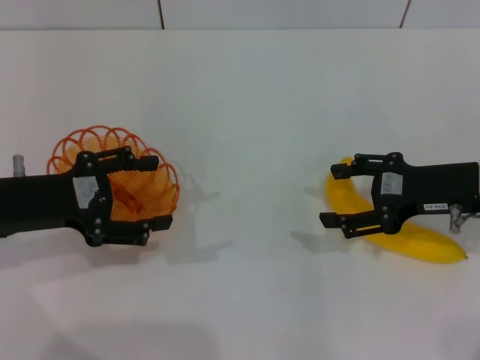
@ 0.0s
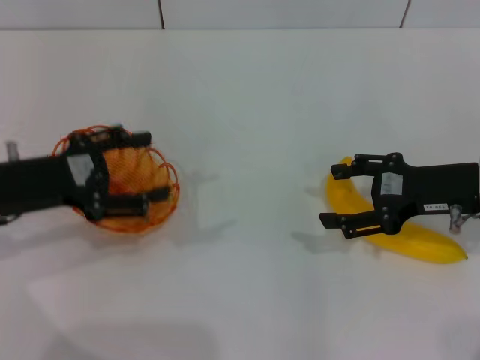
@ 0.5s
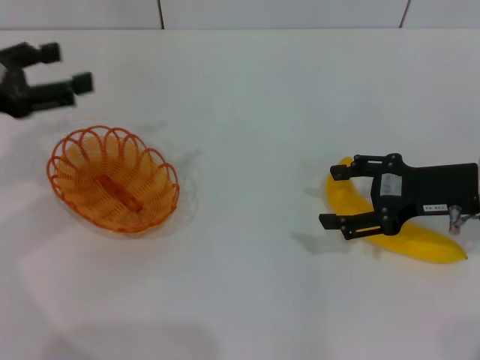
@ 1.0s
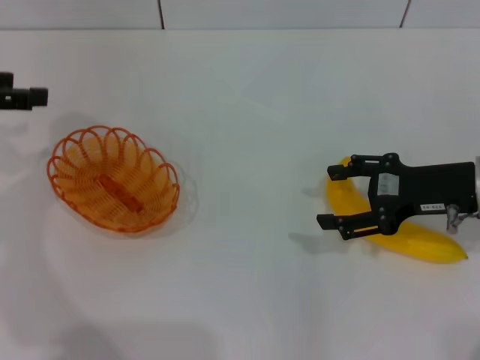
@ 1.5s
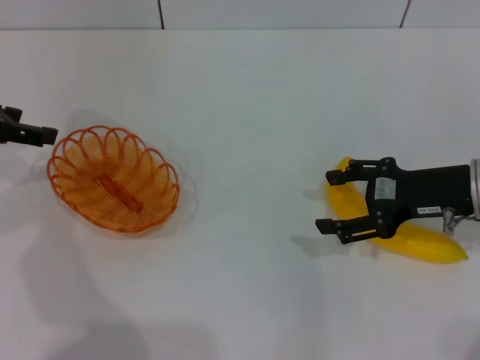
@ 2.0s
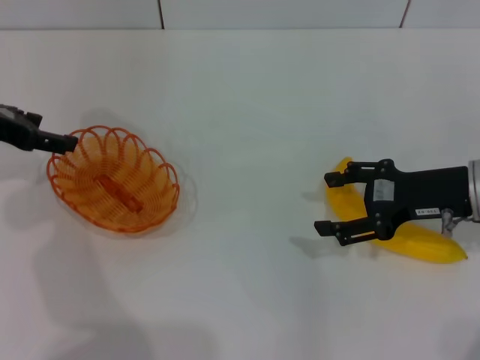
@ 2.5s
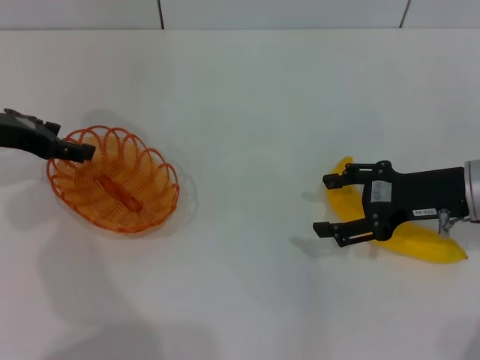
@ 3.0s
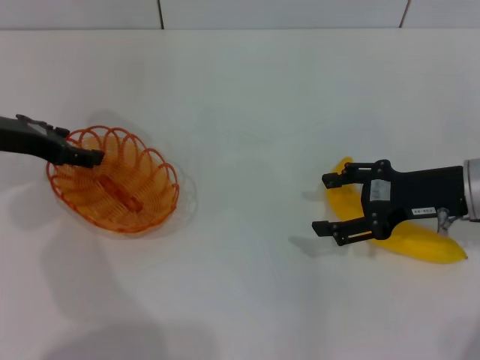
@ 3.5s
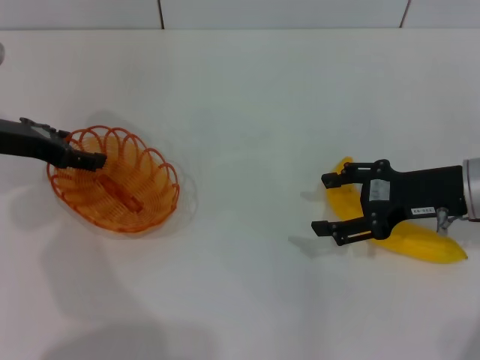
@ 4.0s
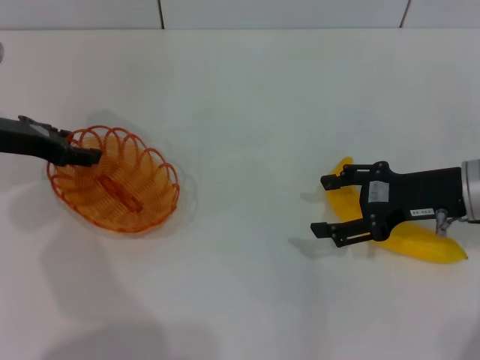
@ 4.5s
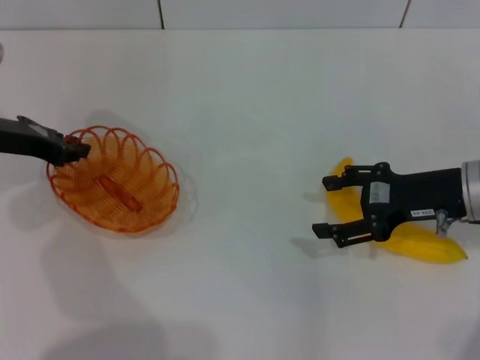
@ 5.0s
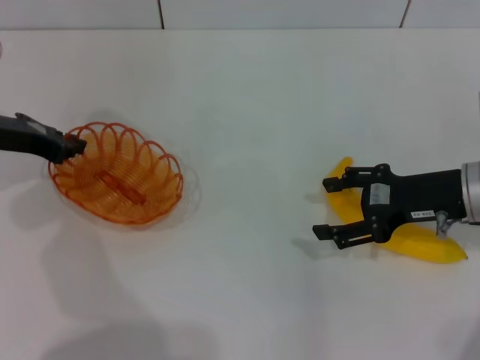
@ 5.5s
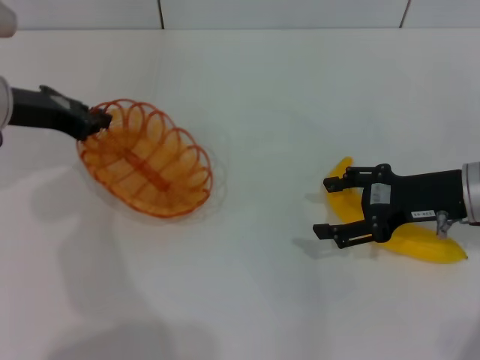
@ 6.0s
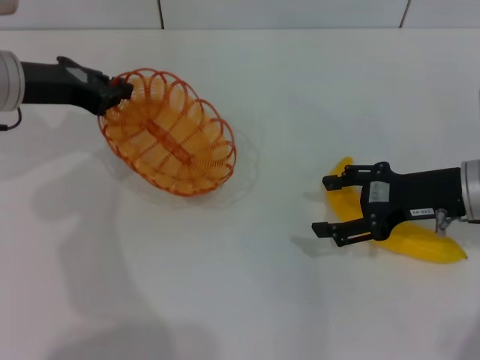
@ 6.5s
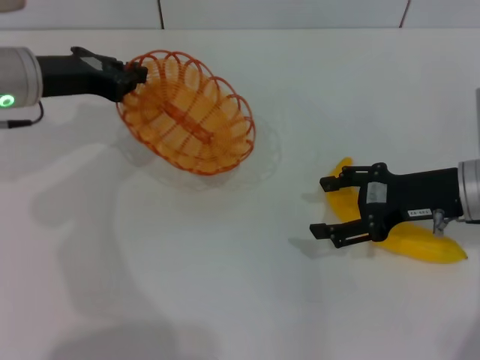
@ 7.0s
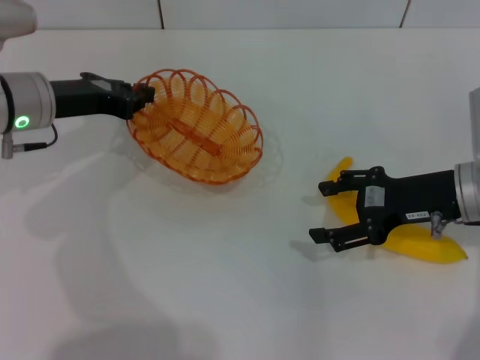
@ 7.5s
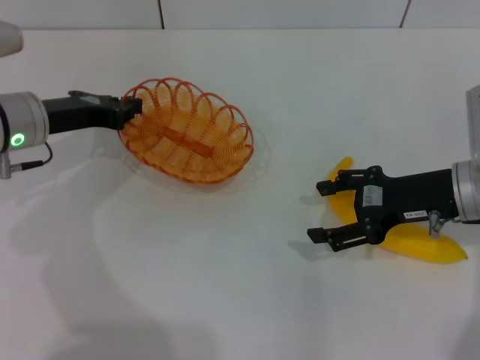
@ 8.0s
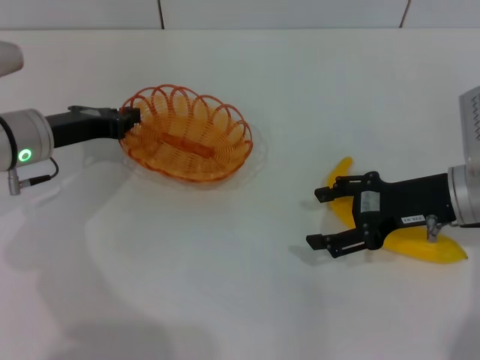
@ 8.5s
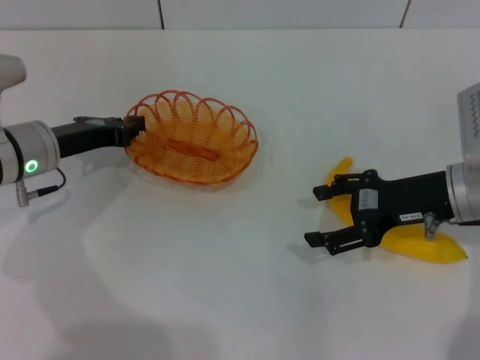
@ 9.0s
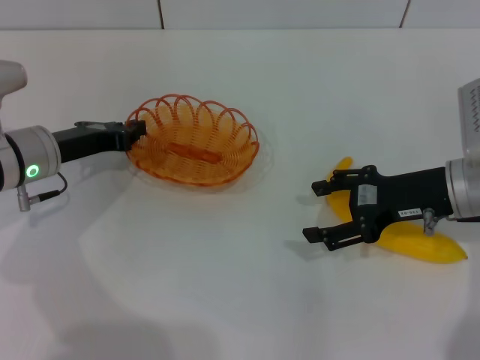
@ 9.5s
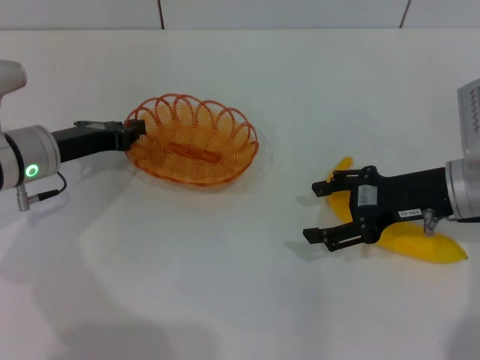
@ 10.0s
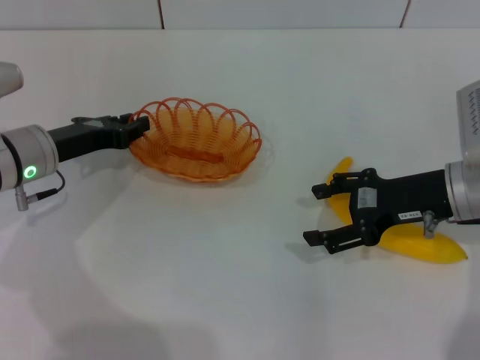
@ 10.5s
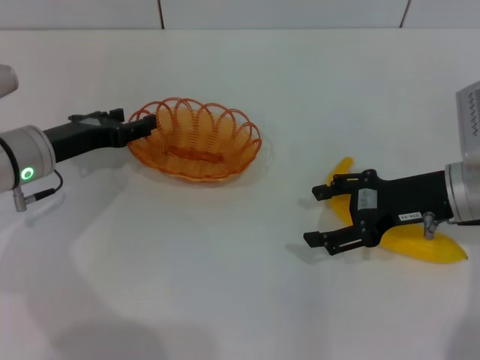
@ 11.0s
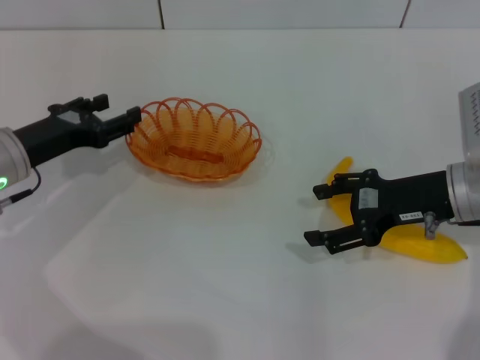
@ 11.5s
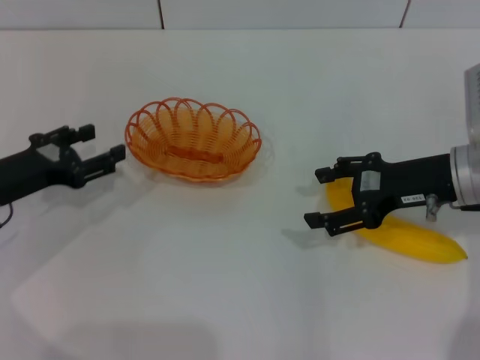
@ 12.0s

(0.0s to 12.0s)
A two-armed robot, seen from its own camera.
Step, 0.0s - 6.5s: Pick up the basket with the left gripper.
Step, 7.0s - 11.0s: Place the basket in the center of view with the left gripper.
0.0s - 2.0s: The left gripper heads upward, forward and to the left, covering some 10 cm.
2.0s - 4.0s: The left gripper travels downward by some 5 cm.
4.0s - 6.0s: The left gripper closes.
6.0s - 8.0s: There are only small adjustments of the grippers.
8.0s - 10.0s: The grippers move only a little.
10.0s - 12.0s: The left gripper is displaced backward and to the left by approximately 10 cm, and opens its fingers.

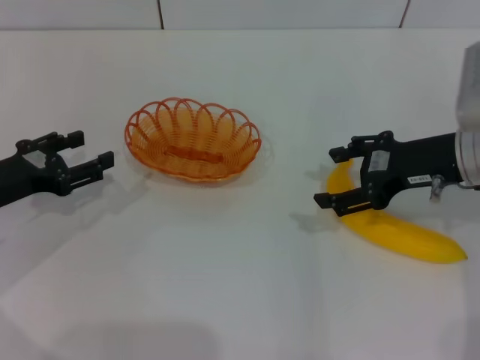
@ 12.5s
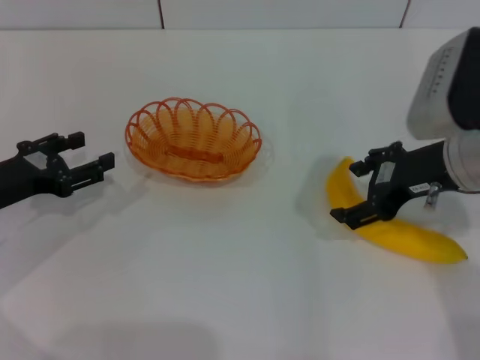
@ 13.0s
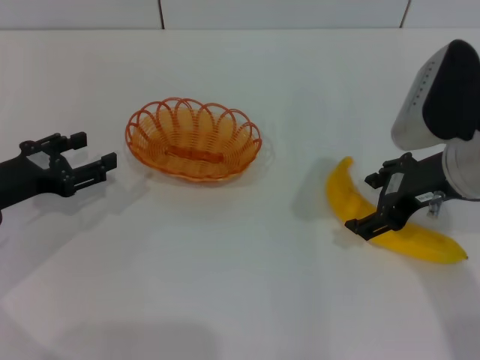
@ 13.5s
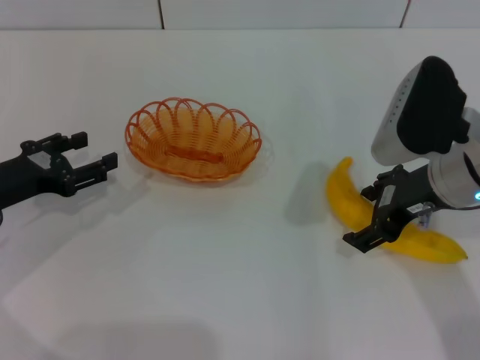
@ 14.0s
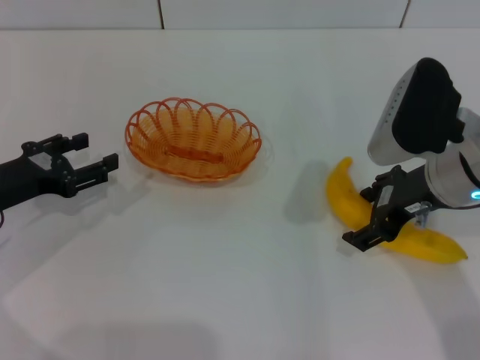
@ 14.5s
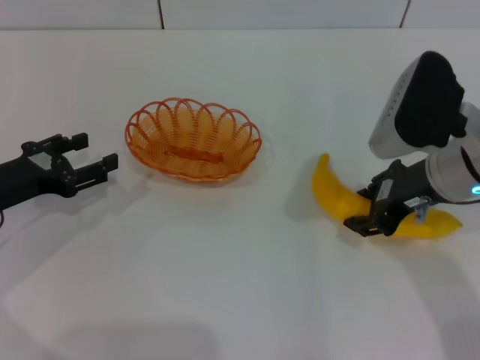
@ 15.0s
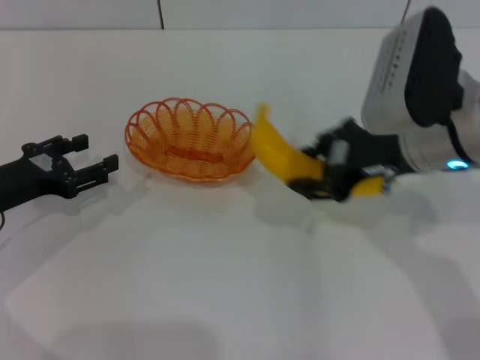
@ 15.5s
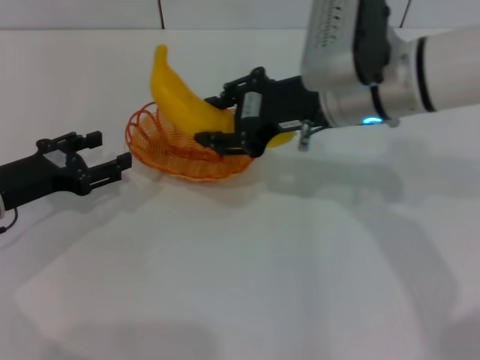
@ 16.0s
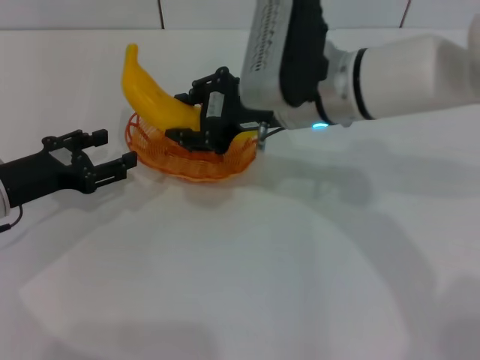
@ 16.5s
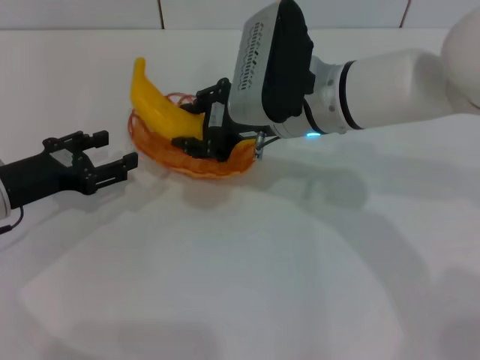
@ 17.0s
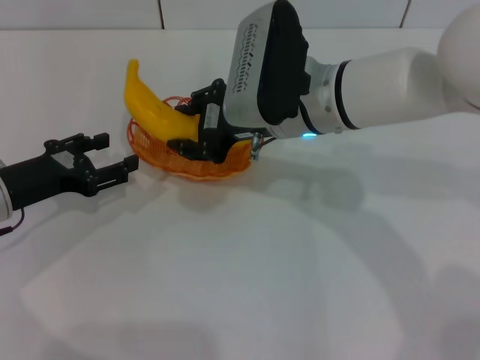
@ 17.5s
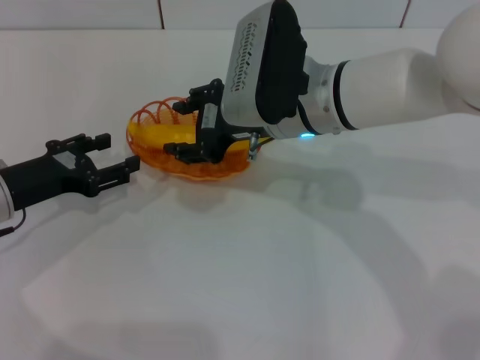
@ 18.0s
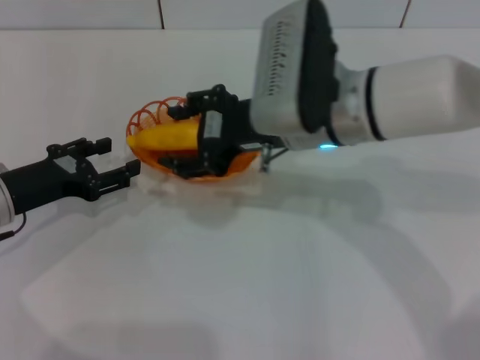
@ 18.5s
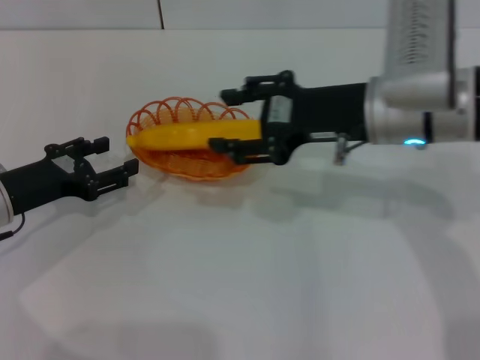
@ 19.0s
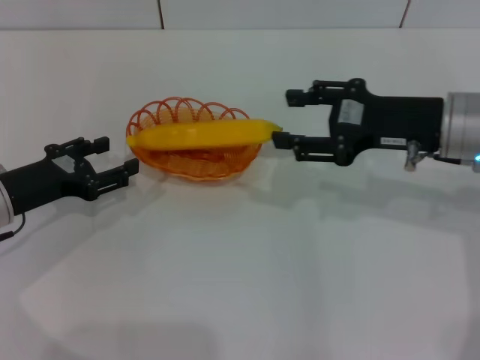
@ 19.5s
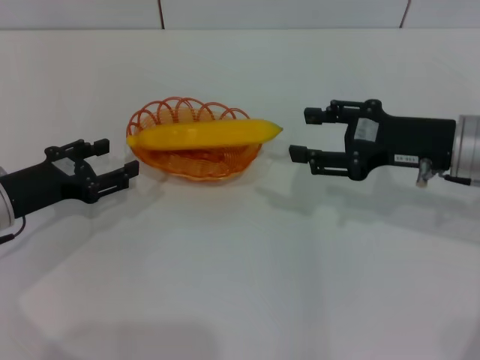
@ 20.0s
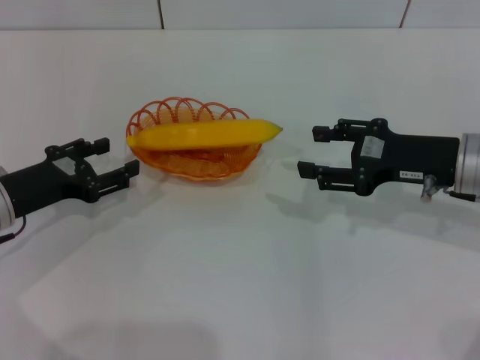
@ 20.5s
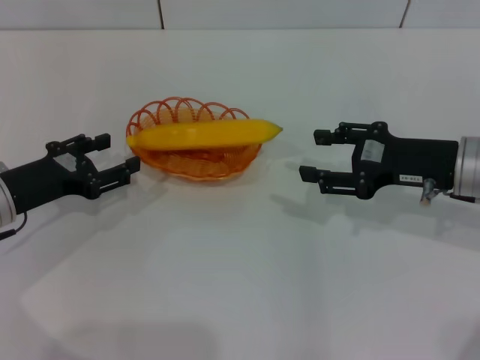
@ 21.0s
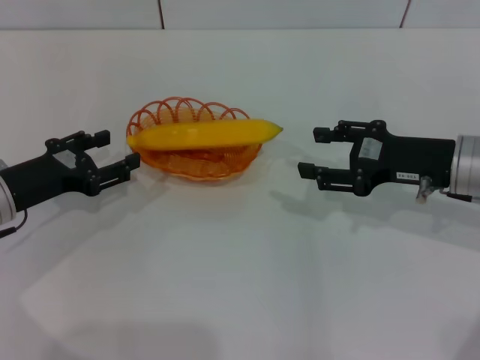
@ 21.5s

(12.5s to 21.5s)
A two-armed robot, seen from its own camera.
Step, 12.5s - 15.0s: Pick up the banana with the right gripper.
Step, 15.5s - 19.0s: Place the banana into the basket with the right gripper.
14.5s - 17.0s: The right gripper goes some 15 cm to the left and forward, and closes its fingers.
17.0s - 19.5s: The right gripper moves to the right, roughly 15 cm, and opens its fingers.
19.5s - 21.5s: The right gripper changes place by approximately 5 cm.

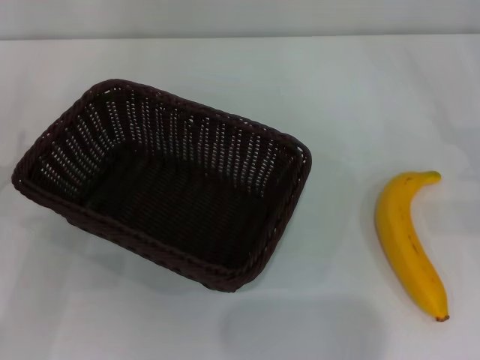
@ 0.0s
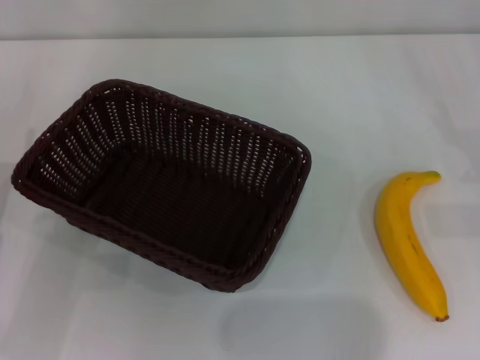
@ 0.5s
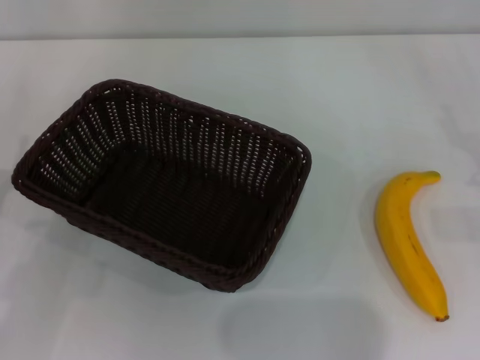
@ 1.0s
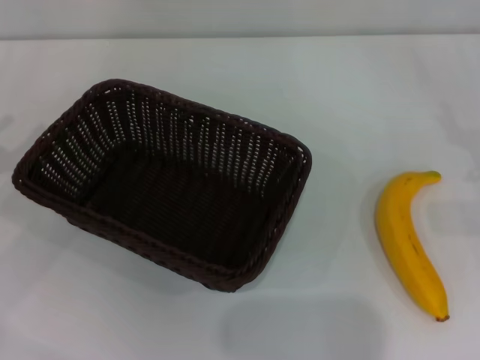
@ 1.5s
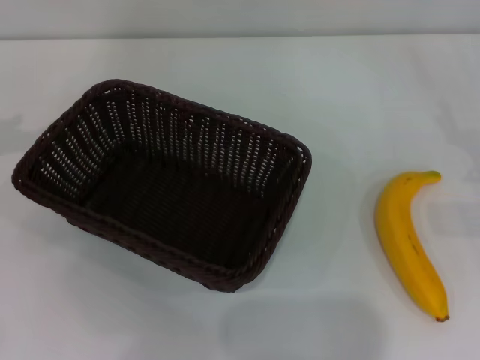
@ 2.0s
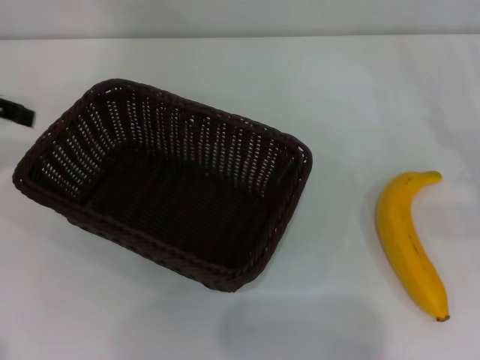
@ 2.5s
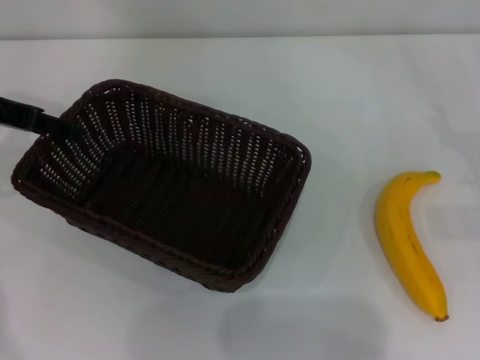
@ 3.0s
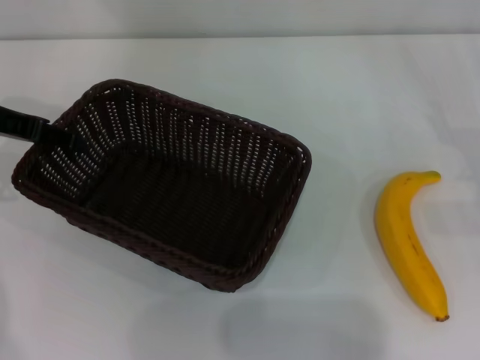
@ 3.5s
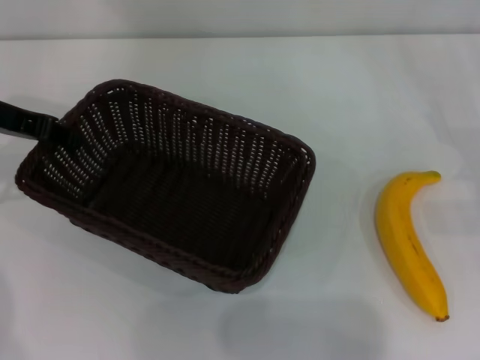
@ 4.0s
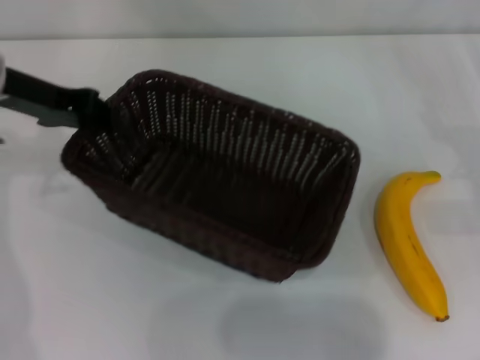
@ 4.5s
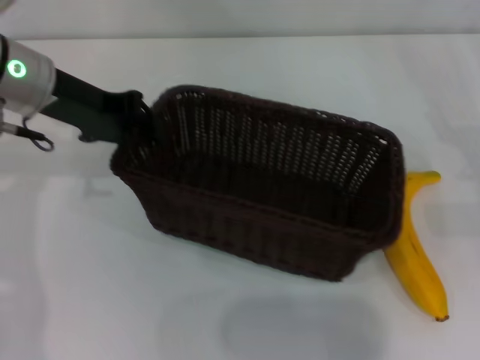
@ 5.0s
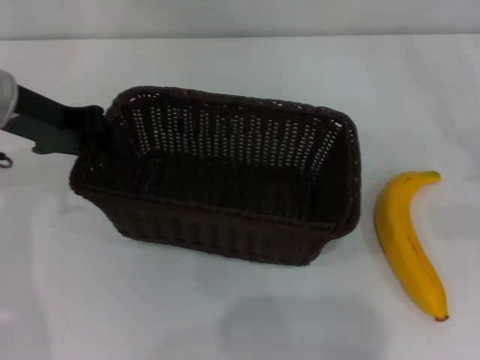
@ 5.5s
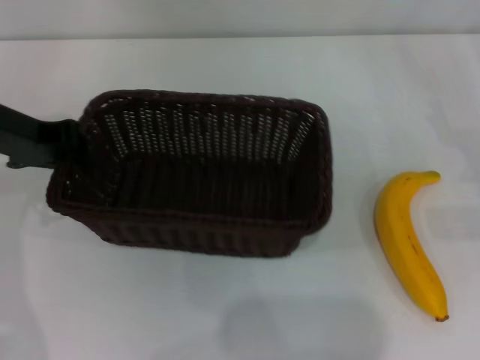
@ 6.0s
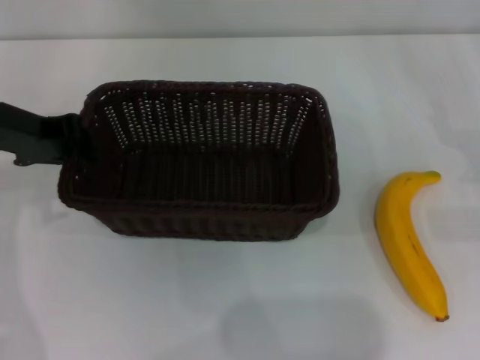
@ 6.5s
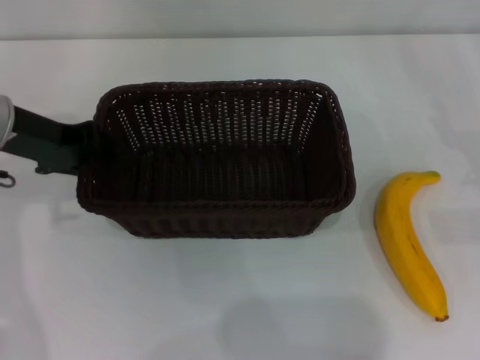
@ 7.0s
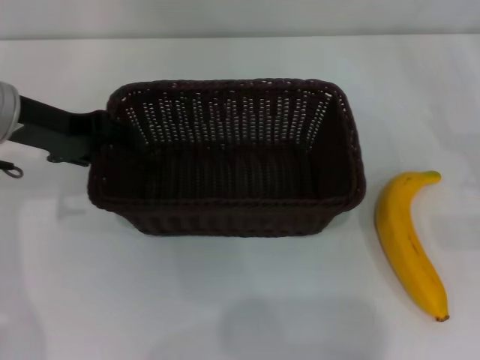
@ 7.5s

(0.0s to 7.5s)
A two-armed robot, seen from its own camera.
Step, 0.0s - 4.0s: Pick up the dark basket with the left gripper.
2.0s - 4.0s: The left gripper heads to the right and downward, covering roughly 10 cm, and closes.
4.0s - 5.5s: The left gripper heads to the right, covering about 5 cm.
5.5s - 7.5s: The left gripper opens.
